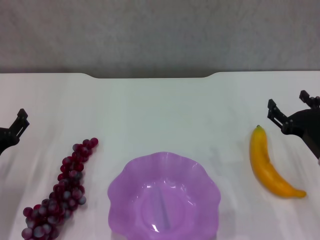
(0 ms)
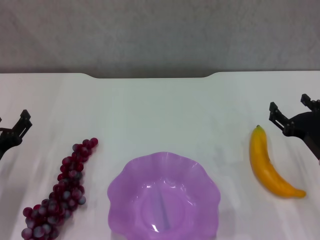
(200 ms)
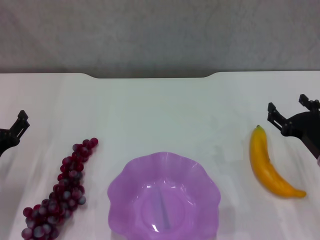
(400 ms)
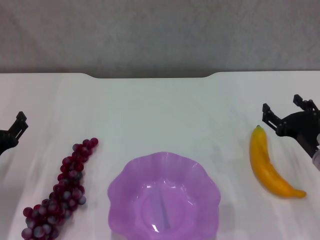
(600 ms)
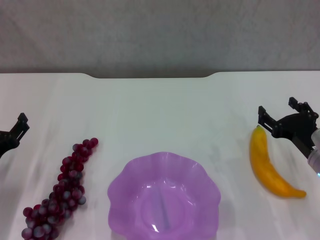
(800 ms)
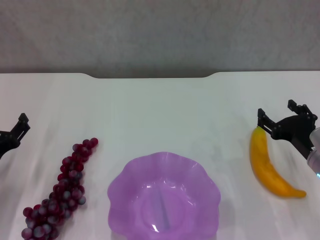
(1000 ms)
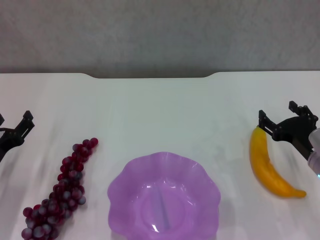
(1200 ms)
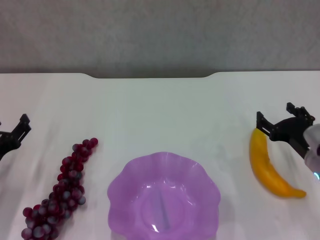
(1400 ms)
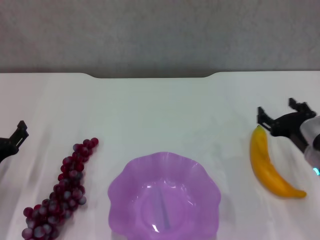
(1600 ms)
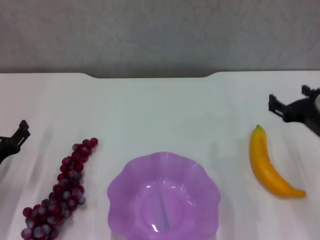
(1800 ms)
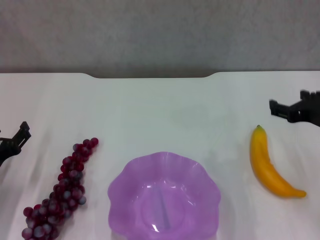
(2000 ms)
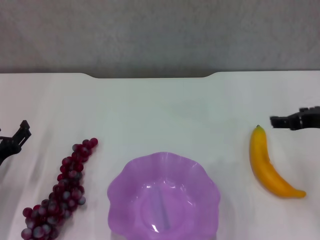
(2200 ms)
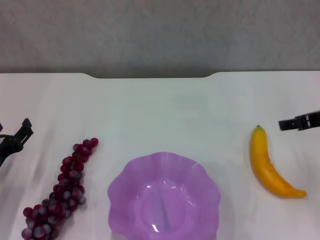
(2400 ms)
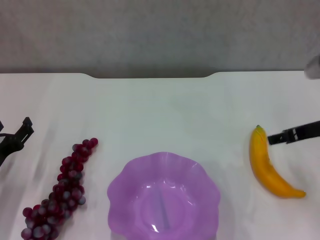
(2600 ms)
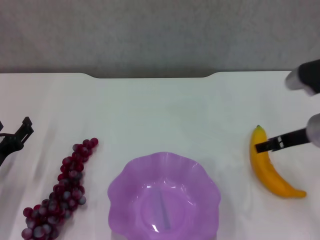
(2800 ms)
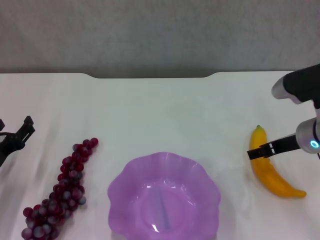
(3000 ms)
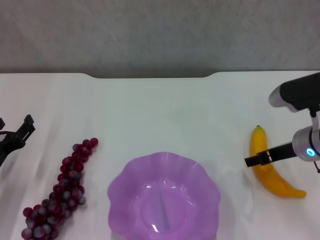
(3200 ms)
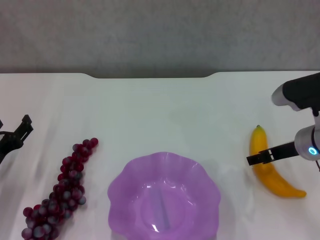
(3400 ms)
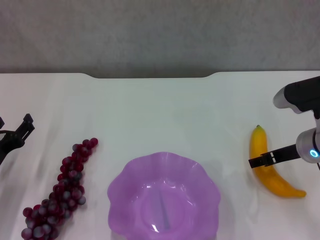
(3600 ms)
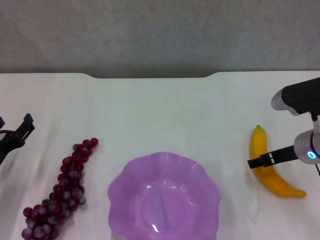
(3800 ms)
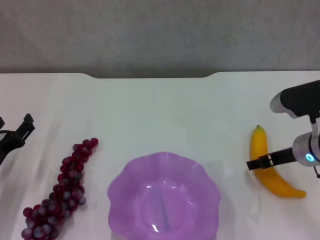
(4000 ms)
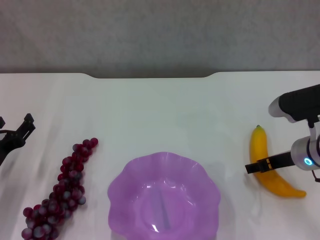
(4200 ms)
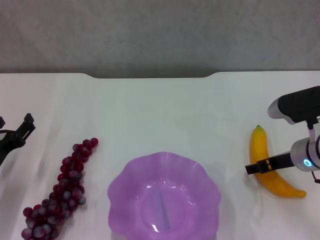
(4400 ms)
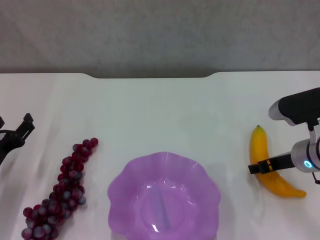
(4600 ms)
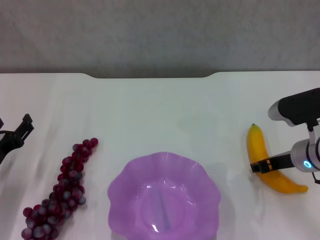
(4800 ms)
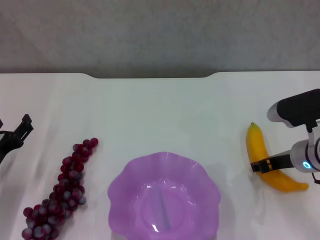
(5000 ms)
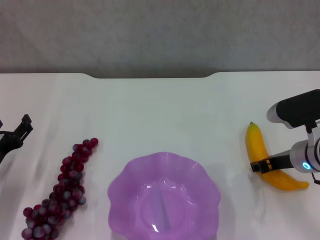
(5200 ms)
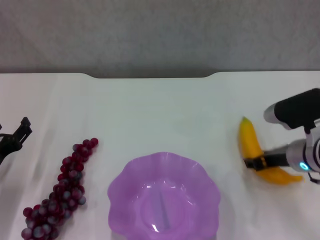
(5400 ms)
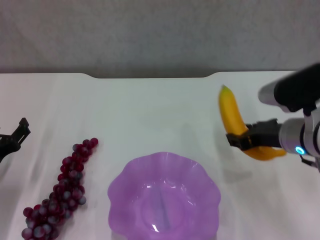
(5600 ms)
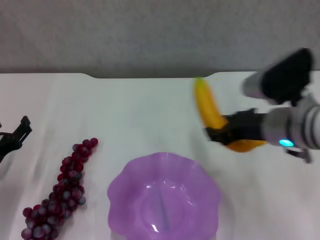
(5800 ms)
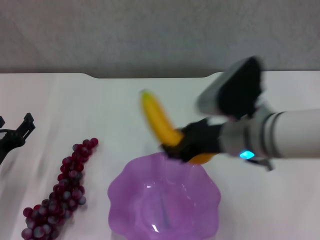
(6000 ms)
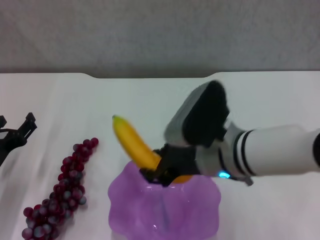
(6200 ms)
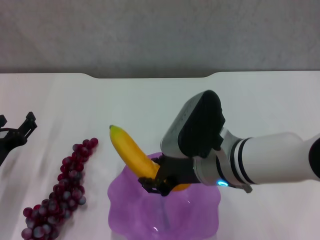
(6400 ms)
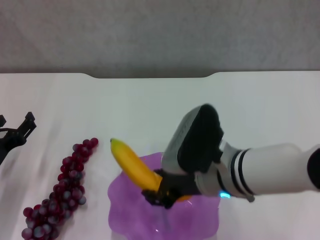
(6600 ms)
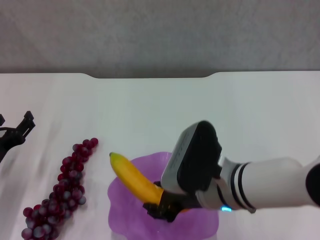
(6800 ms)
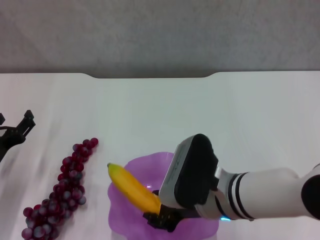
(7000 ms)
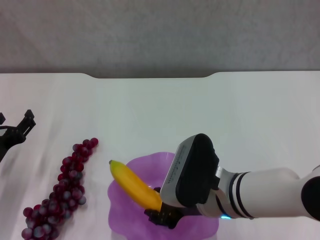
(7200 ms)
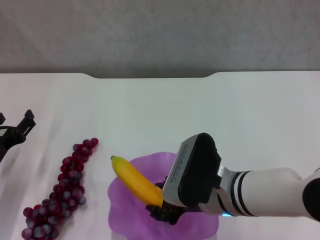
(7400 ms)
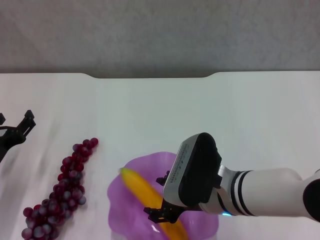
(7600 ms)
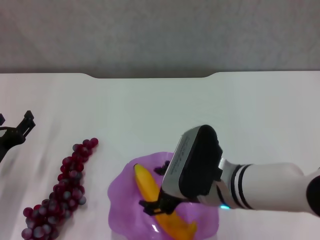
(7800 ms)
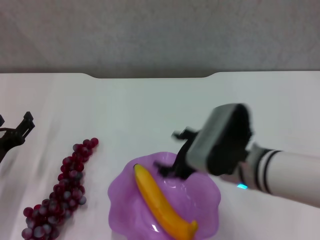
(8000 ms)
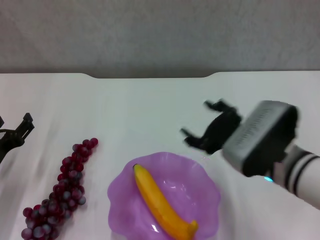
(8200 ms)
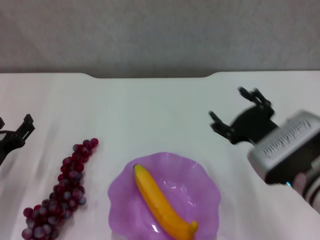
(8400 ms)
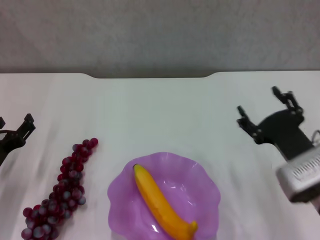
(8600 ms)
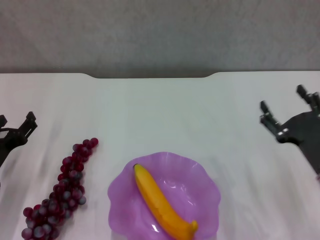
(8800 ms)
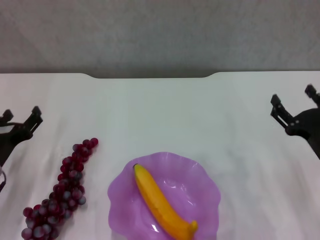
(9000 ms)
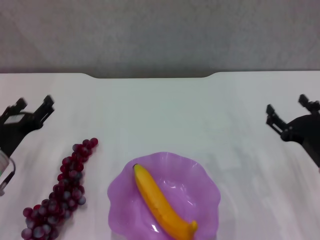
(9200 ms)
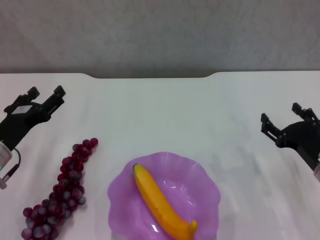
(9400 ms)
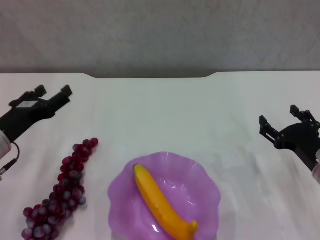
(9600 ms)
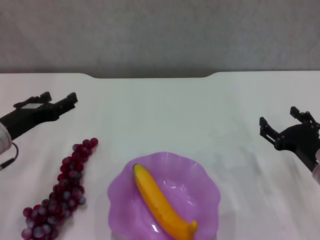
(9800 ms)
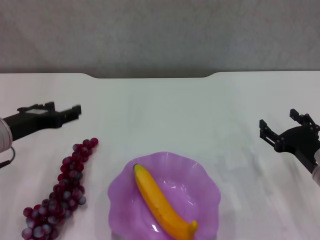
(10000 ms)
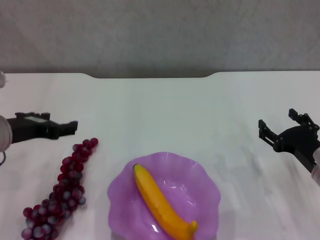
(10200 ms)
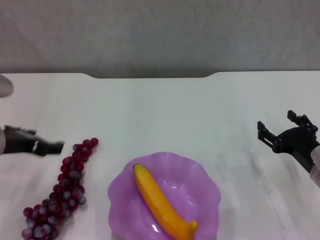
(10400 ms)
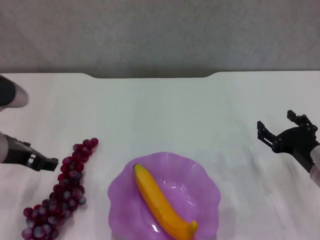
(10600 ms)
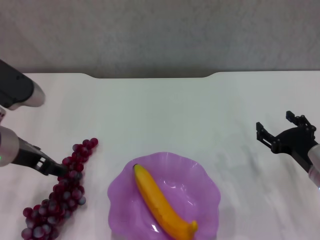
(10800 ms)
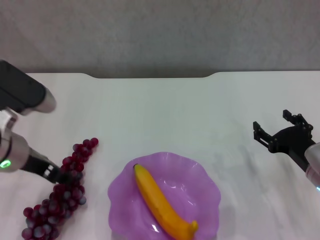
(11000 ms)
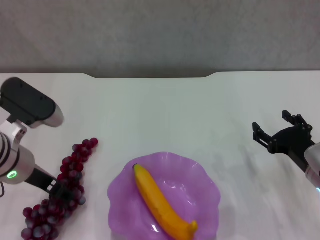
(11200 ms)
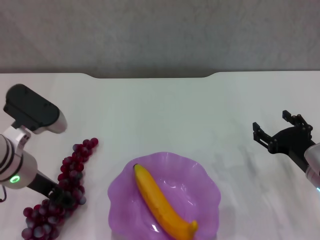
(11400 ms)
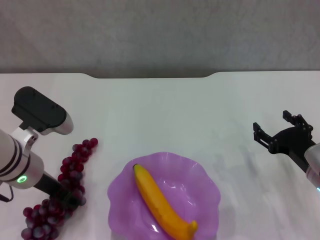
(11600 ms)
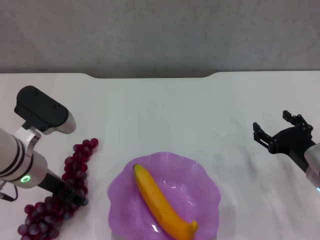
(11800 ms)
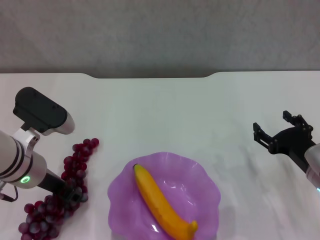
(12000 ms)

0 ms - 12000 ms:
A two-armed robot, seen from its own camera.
Step, 0 ms - 5200 ms: Grasp the banana with right gripper.
Step, 5400 ms - 7800 ms: Place the banana in the purple plate with right gripper.
0 ms - 1600 ms: There are only small adjustments of the grippers.
1600 ms - 3000 ms: The right gripper travels upward by approximately 5 cm.
3000 ms - 4400 ms: The grippers stay close to where they were, moving slightly.
4400 ms - 6000 ms: The right gripper moves to the left and upward, approximately 15 cm, and closes.
6000 ms - 7600 ms: The right gripper is displaced downward by approximately 5 cm.
7600 ms - 9000 ms: The right gripper moves to the right, about 20 cm, and opens.
9000 ms - 10400 ms: The left gripper travels upward by some 10 cm.
10400 ms - 12000 ms: The left gripper heads to the right, covering roughly 5 cm.

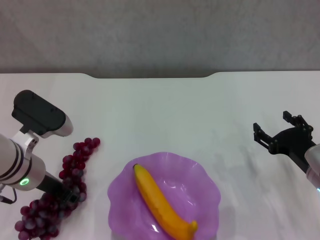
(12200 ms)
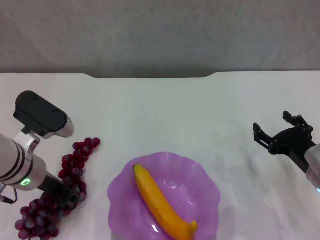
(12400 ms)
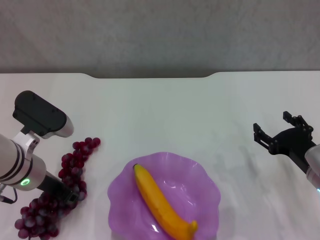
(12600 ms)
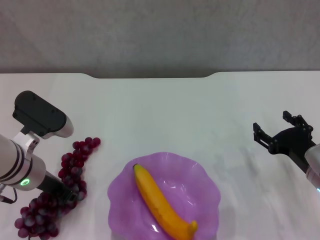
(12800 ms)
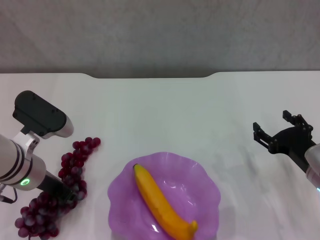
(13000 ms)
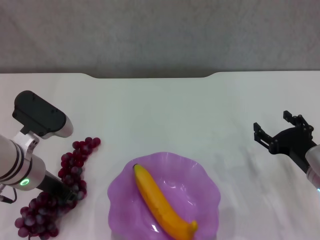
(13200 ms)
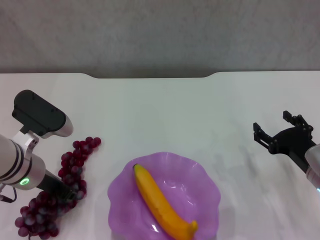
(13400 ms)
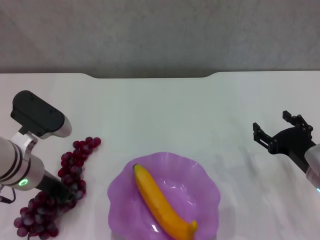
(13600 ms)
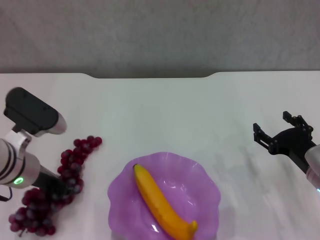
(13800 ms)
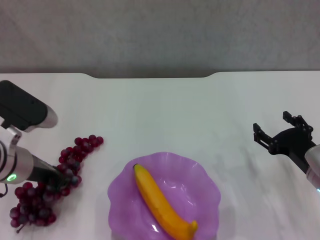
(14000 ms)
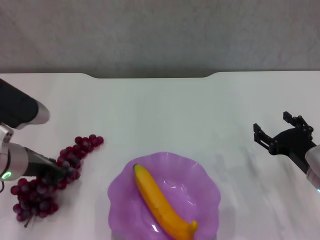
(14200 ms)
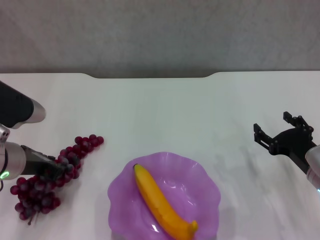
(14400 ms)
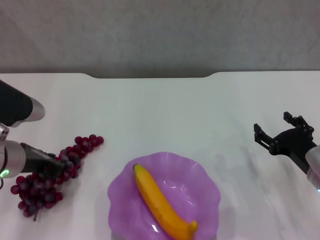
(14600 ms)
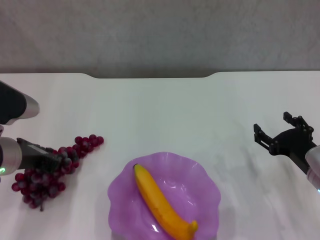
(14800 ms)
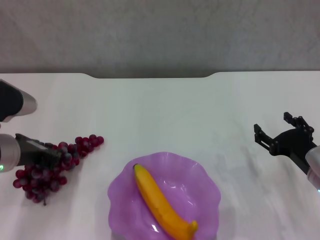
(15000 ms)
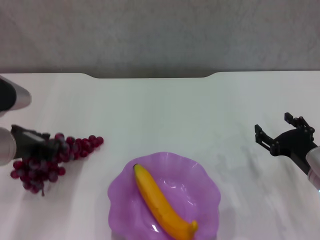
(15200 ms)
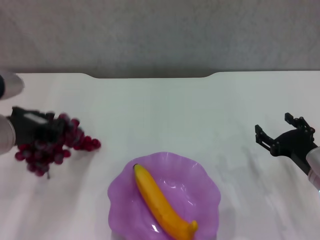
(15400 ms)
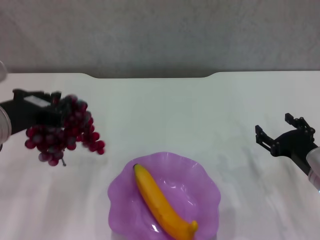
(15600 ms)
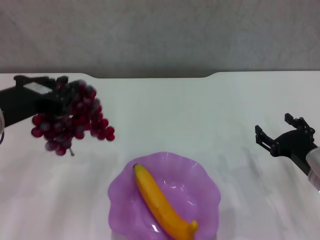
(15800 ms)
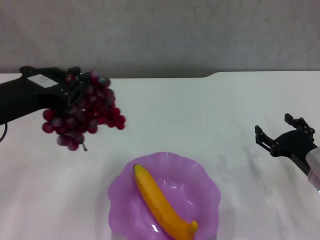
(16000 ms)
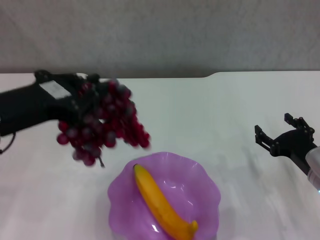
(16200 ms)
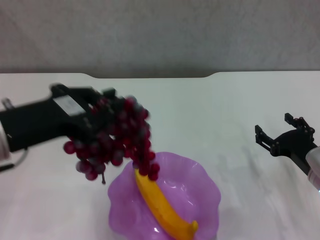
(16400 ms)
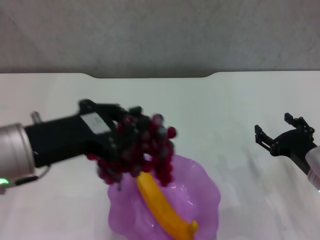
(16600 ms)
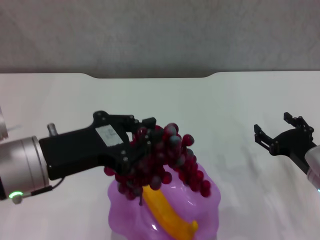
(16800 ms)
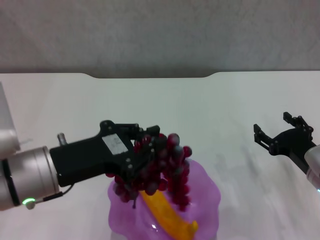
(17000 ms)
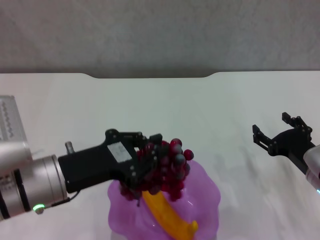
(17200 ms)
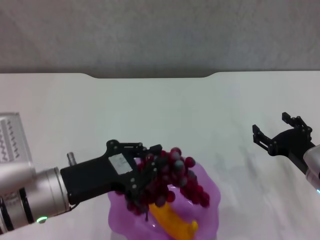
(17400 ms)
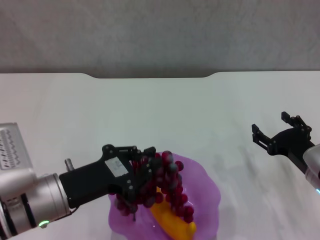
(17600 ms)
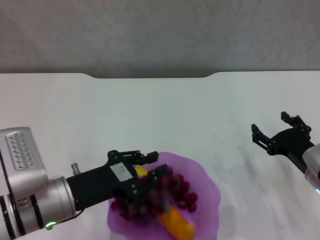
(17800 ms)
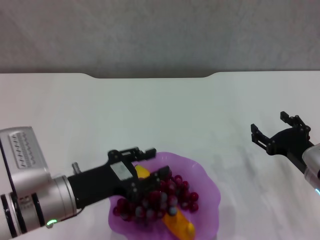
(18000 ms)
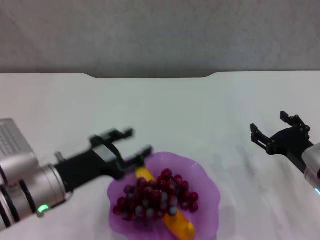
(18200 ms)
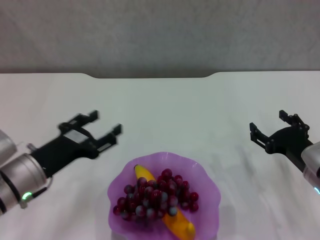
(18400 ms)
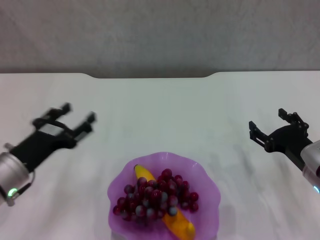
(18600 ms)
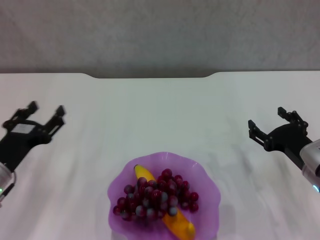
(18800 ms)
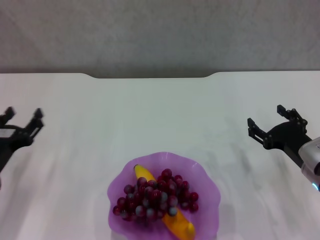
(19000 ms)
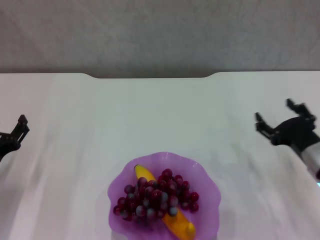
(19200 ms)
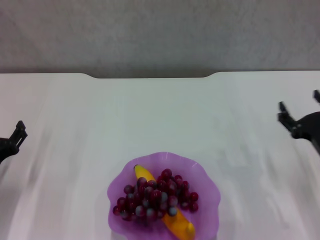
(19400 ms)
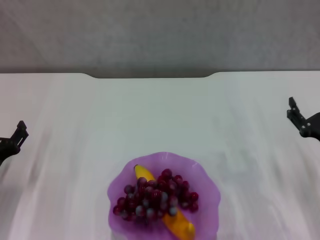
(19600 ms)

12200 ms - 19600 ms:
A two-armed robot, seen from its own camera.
Step, 13200 ms - 18000 ms: Place the grape in the purple plate with left gripper.
12200 ms - 13600 ms: The left gripper closes up.
13600 ms - 15200 ms: The left gripper shifts by roughly 5 cm.
15200 ms - 16600 ms: The left gripper is displaced backward by about 5 cm.
16600 ms - 18200 ms: The left gripper travels downward by some 15 cm, and opens.
18200 ms - 19600 ms: The left gripper travels to the left and downward by some 10 cm, and opens its fingers.

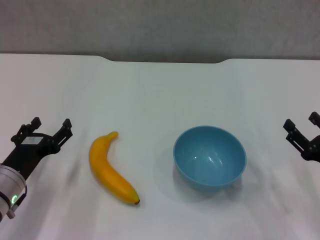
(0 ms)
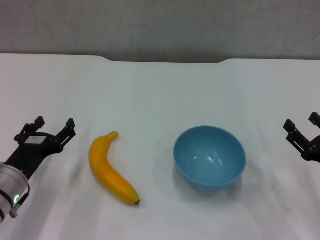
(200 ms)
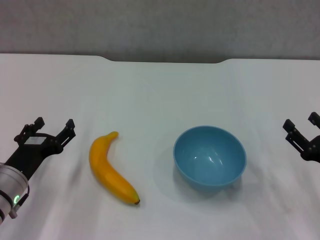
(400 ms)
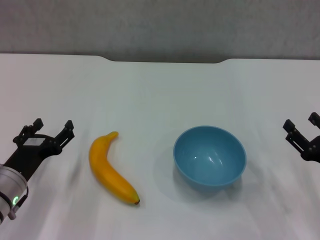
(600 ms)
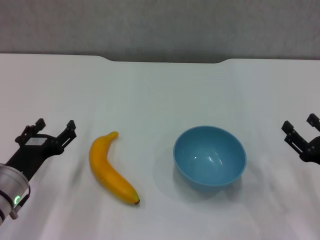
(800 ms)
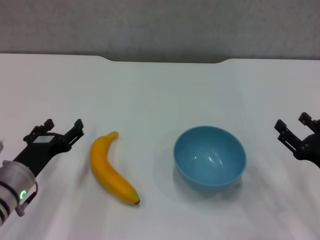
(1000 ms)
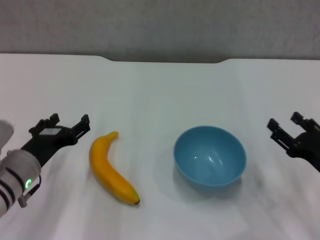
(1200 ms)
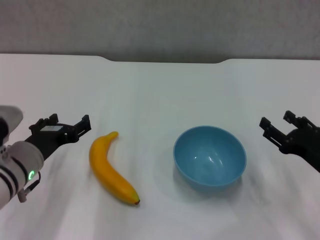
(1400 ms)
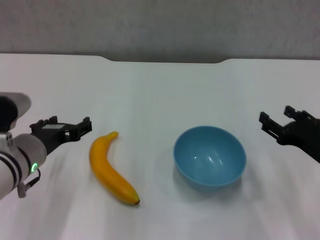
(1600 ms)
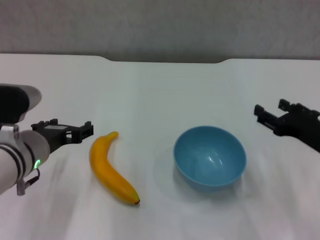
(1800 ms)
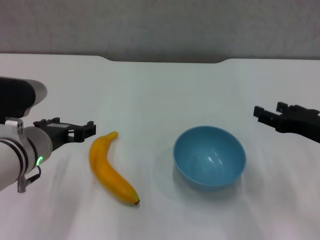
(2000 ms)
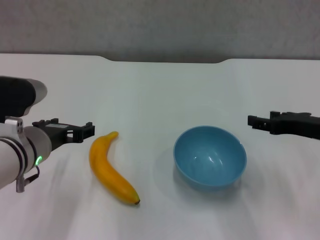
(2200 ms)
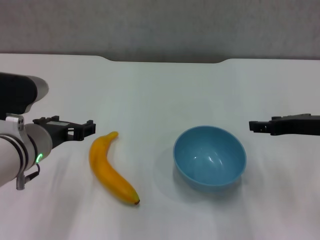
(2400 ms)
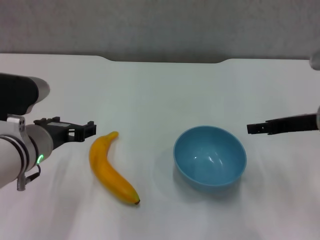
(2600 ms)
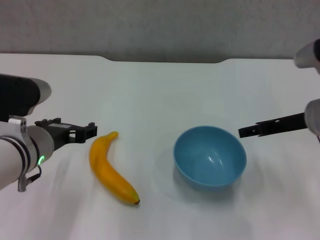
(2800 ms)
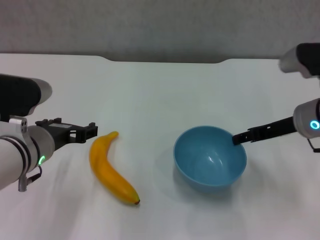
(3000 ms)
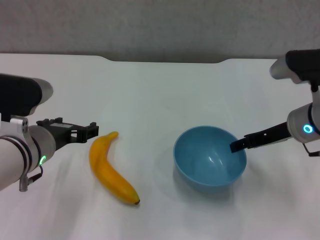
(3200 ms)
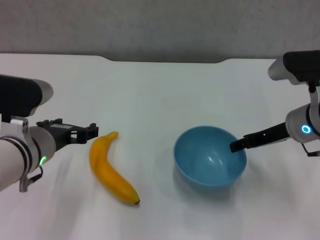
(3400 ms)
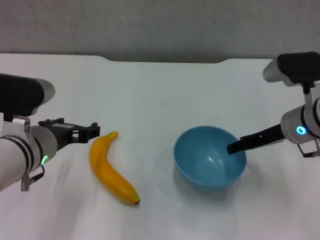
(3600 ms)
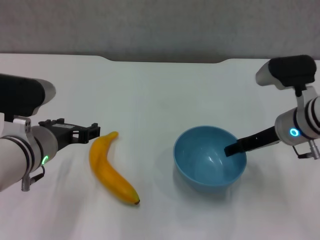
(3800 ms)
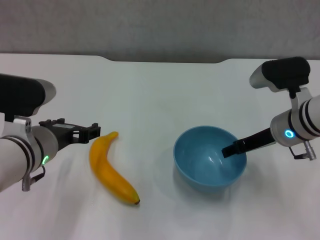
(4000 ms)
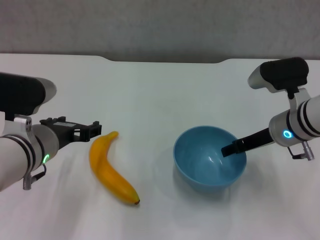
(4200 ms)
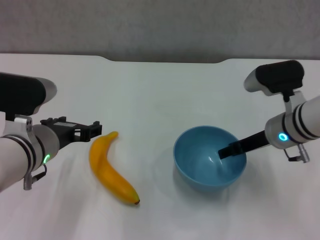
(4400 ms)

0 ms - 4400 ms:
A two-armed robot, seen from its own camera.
0 ms - 1400 ms: The left gripper travels upward by some 5 cm.
1400 ms - 3000 ms: The left gripper goes approximately 5 cm upward, while the right gripper shifts approximately 15 cm forward, upward and to the left.
3000 ms - 4400 ms: The right gripper shifts by approximately 5 cm.
